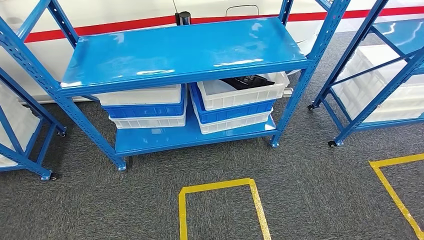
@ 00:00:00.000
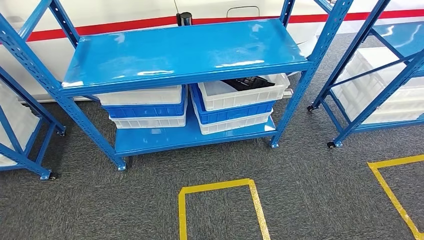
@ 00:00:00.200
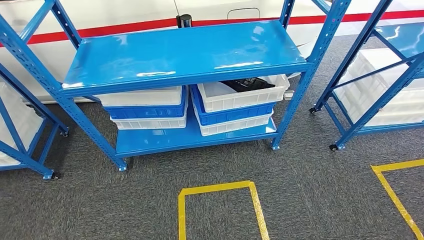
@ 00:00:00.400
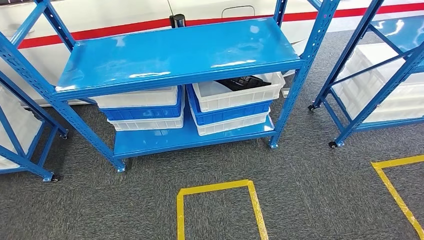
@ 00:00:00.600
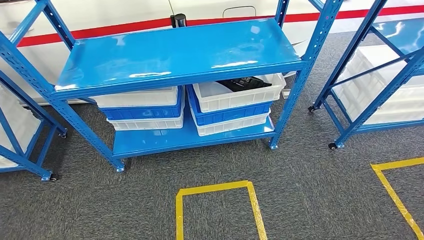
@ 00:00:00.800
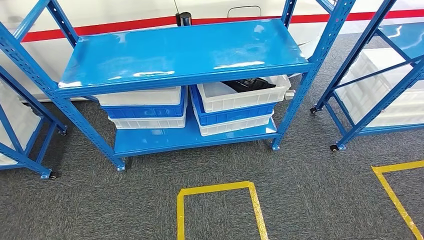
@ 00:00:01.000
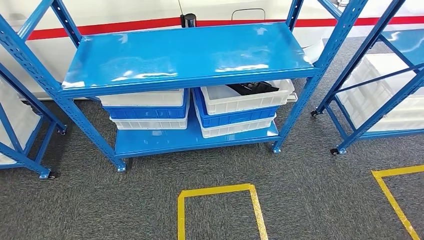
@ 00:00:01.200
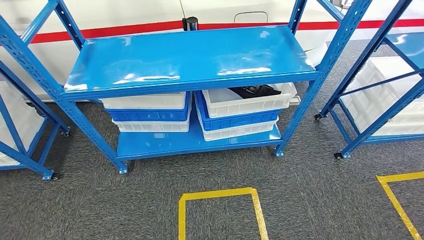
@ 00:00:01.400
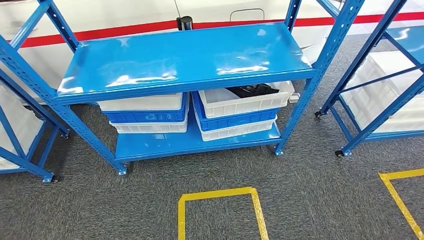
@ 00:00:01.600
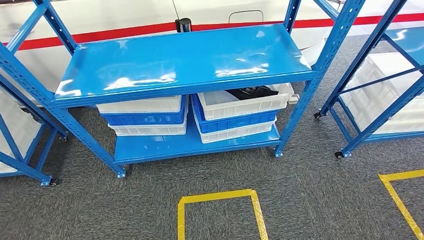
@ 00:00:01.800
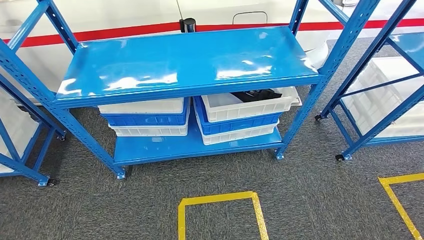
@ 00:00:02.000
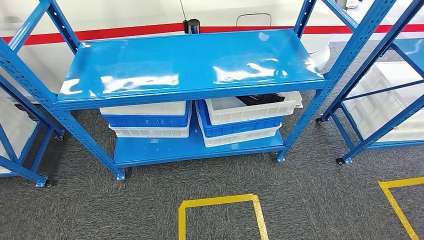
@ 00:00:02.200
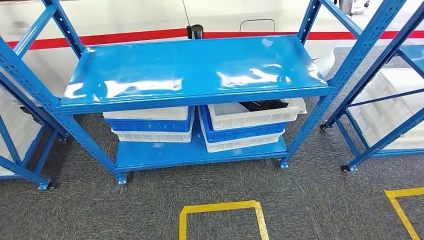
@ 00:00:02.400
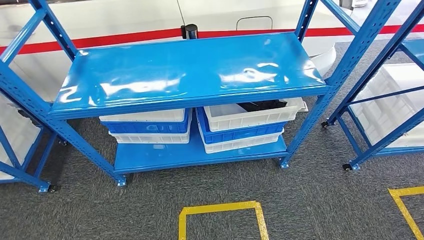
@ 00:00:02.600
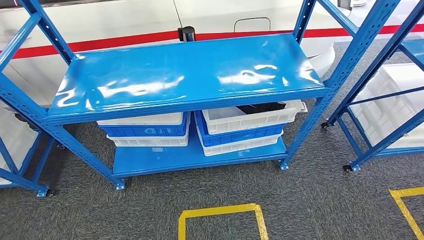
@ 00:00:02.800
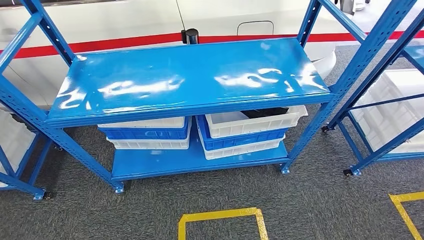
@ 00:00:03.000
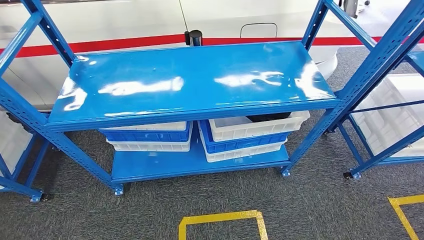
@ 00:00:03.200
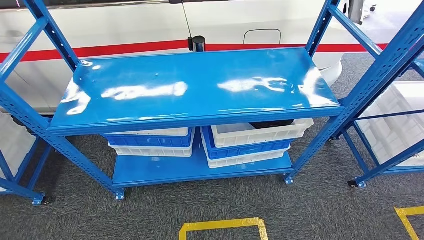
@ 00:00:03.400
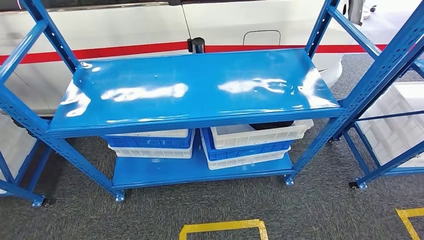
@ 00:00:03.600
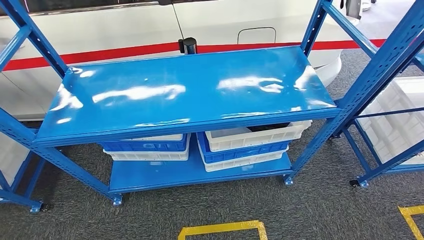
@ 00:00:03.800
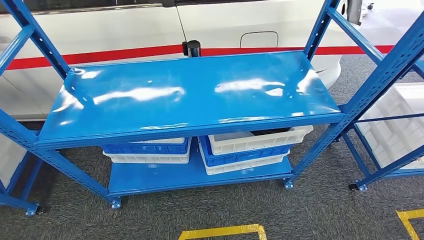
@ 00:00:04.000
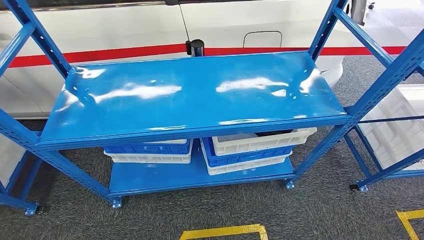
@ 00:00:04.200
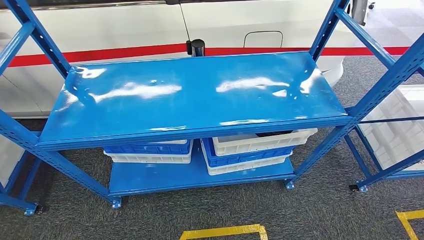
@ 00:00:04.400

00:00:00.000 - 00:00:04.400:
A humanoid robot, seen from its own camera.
Step, 00:00:00.000 - 00:00:04.400: Move to the initial position of the shelf.
